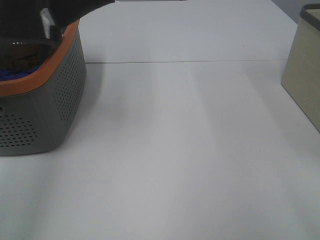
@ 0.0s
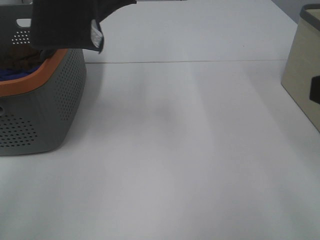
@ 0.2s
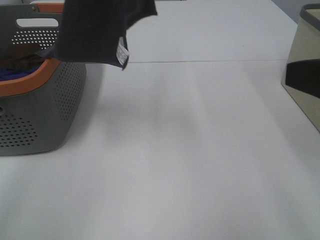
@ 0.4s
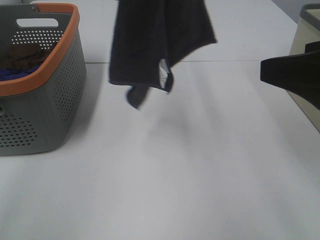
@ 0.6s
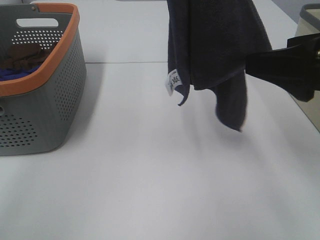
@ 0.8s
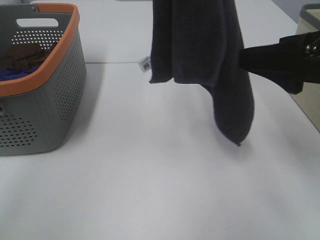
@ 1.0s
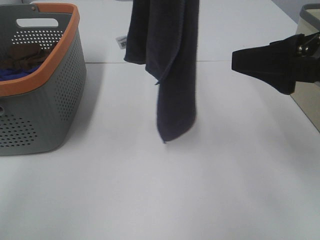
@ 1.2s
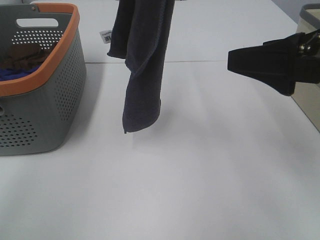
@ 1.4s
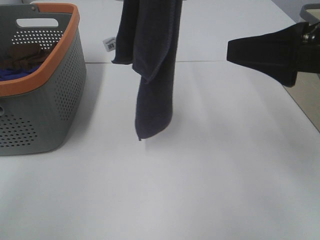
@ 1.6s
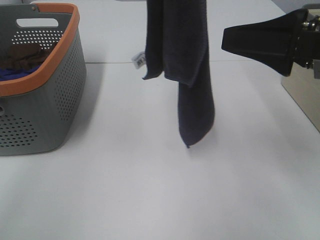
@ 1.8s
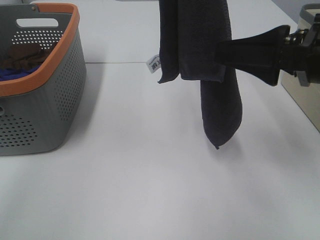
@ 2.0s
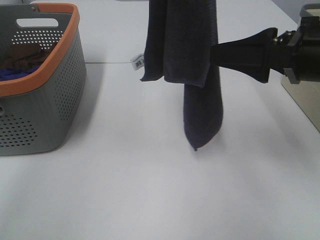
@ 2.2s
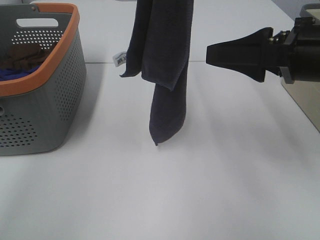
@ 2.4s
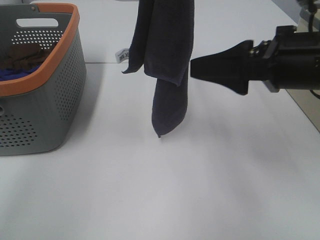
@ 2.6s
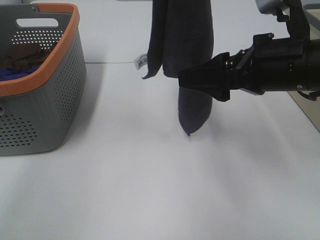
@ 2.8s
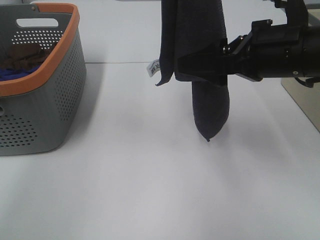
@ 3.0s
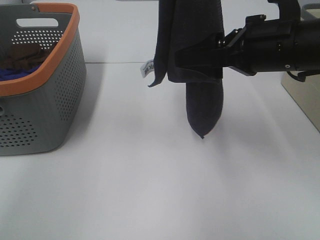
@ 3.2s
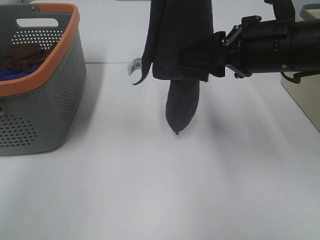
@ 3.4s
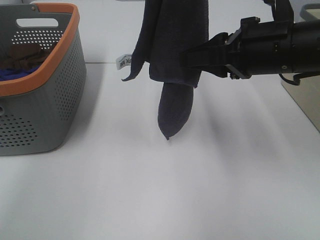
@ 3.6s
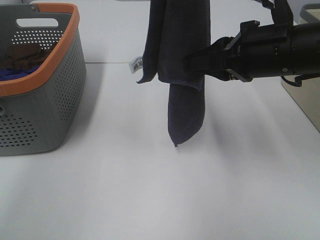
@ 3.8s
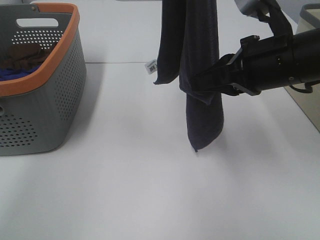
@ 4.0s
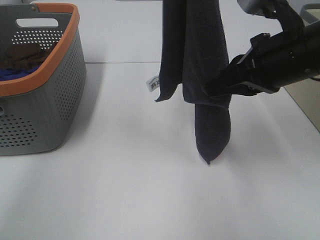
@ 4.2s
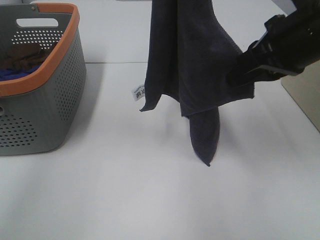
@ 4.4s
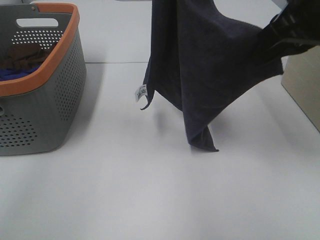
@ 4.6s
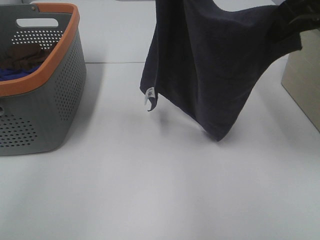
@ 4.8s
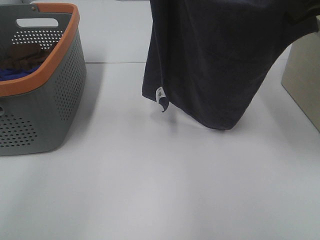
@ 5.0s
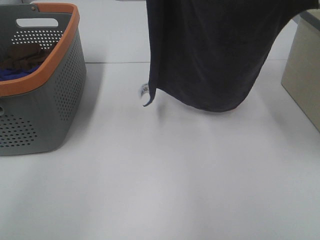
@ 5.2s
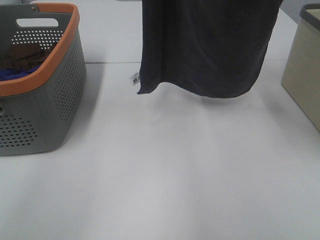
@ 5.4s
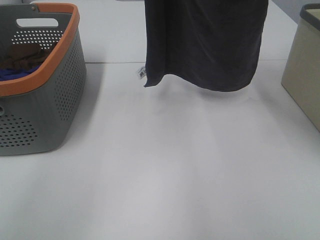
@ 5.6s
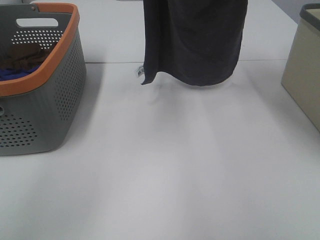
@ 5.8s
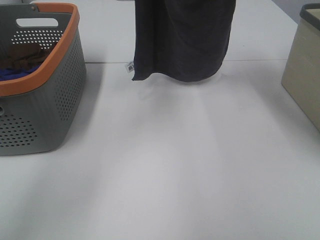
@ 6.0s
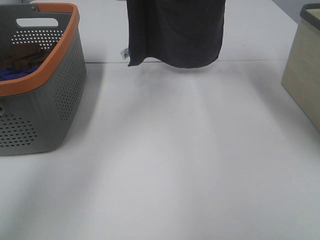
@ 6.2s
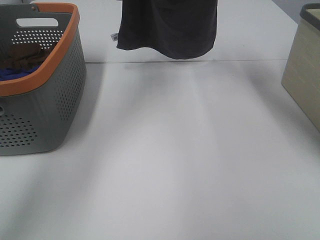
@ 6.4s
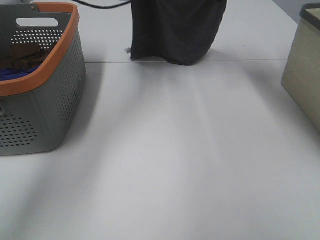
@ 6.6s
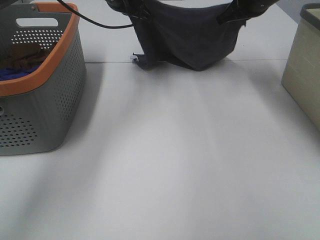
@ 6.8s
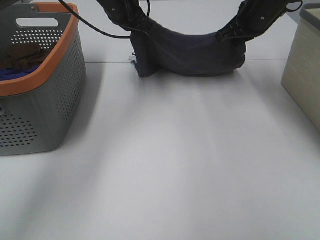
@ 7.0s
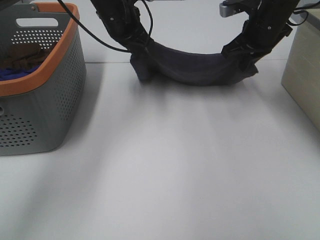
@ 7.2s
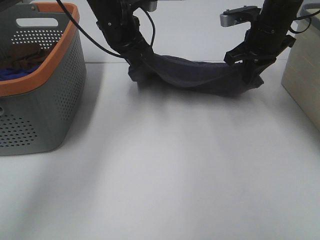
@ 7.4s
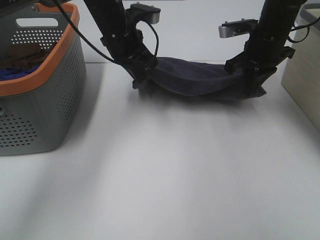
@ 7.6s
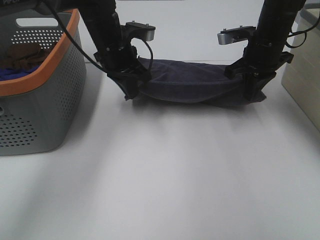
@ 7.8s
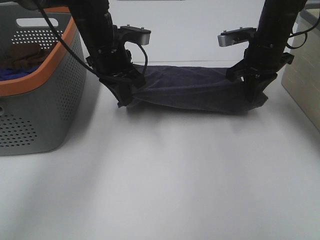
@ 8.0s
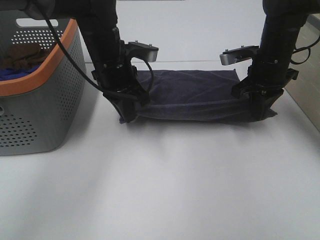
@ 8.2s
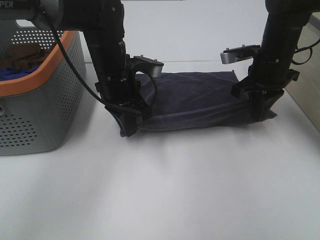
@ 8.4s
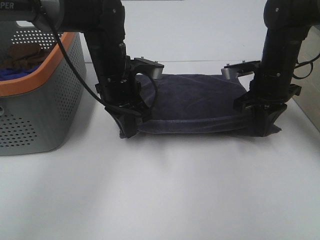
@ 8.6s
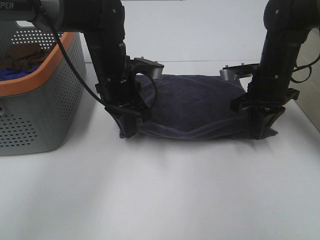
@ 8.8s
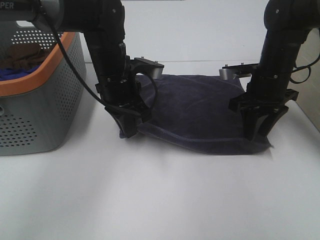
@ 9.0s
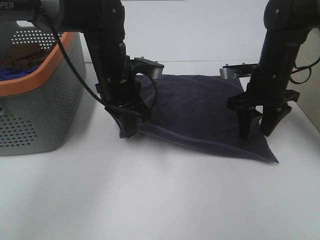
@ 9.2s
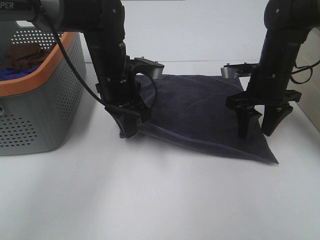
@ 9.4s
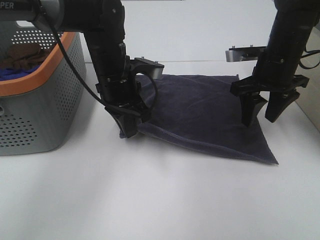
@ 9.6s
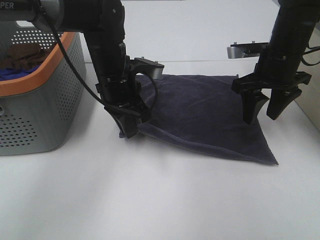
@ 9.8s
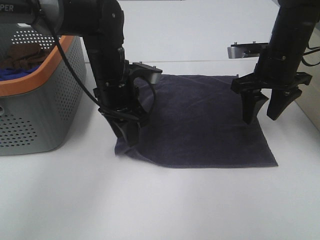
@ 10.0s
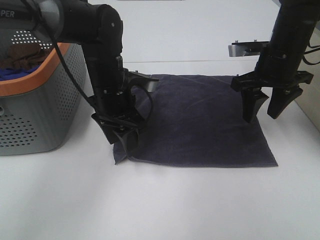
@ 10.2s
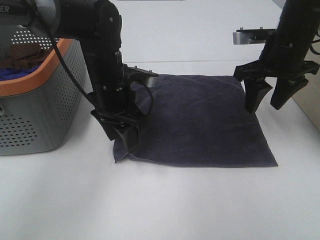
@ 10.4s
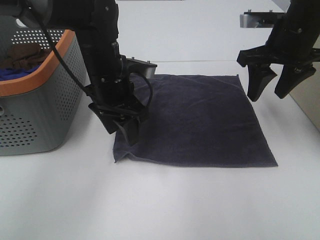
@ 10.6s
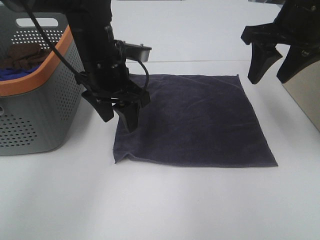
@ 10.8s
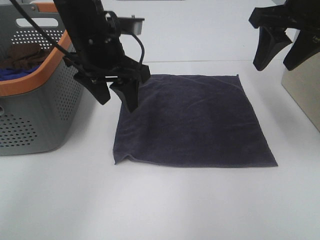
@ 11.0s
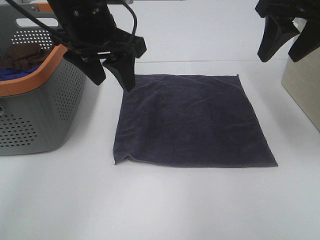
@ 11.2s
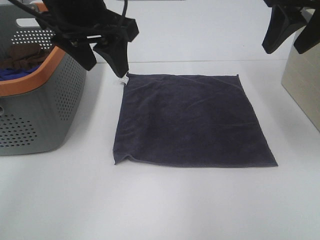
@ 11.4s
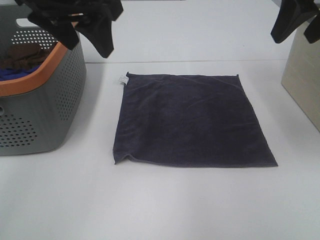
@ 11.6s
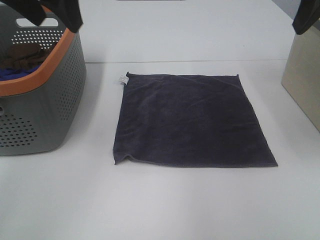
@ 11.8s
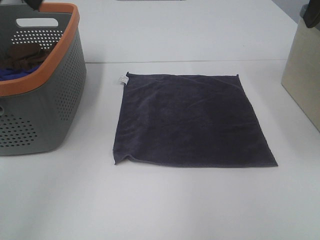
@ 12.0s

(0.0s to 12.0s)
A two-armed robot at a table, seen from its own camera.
Task of the whole recording: Remove the towel and place it.
Step, 0.0s - 2.6s: Right hand: grab a corner of the grey towel and straighten it.
Step, 2.8s - 4.8s: Right hand: spread the grey towel flat on the table.
Step, 2.8s - 6.0s: Left hand: spread the grey towel flat on the table.
0.0s - 1.6s: The right gripper goes roughly 15 cm forward, while the left gripper is displaced to the right by about 15 cm.
1.6s - 3.0s: The right gripper is displaced forward by some 5 cm.
3.0s - 4.4s: The right gripper closes its fingers.
4.4s - 6.0s: The right gripper shifts approximately 15 cm forward, while the left gripper shifts approximately 15 cm forward and downward.
6.0s - 7.6s: The grippers both shift downward by approximately 15 cm.
7.6s - 9.0s: The right gripper shifts by approximately 5 cm, and opens its fingers, while the left gripper shifts approximately 10 cm backward.
9.0s - 10.4s: The right gripper goes approximately 5 cm upward. The left gripper opens up.
10.4s - 12.0s: The right gripper is displaced upward and backward by approximately 20 cm. The left gripper is displaced upward and to the left by roughly 30 cm.

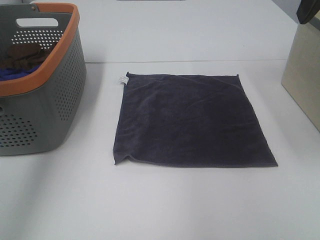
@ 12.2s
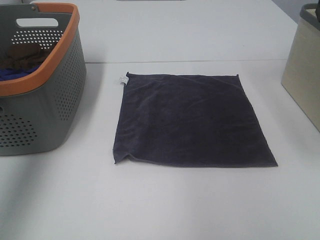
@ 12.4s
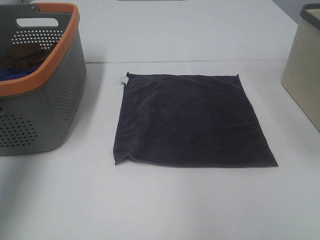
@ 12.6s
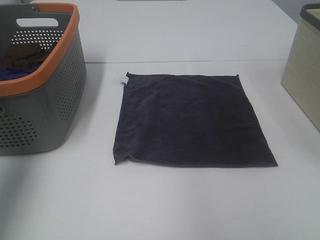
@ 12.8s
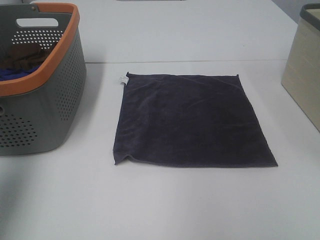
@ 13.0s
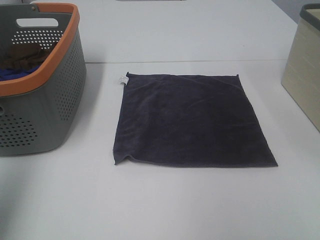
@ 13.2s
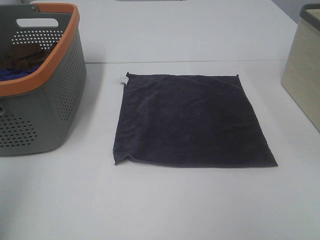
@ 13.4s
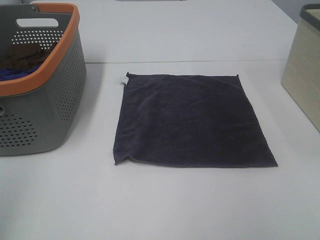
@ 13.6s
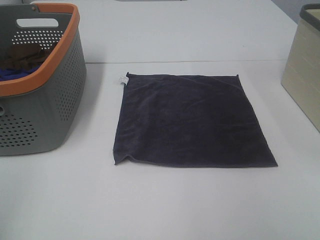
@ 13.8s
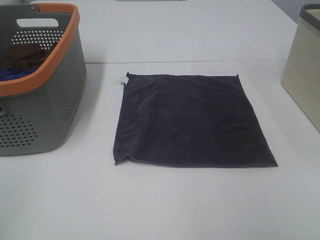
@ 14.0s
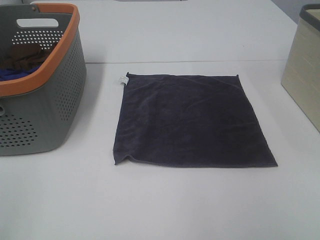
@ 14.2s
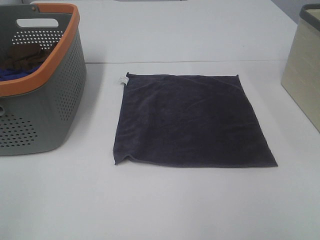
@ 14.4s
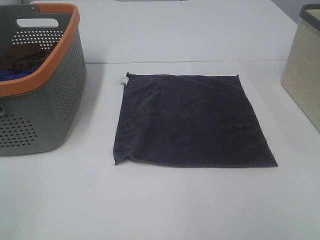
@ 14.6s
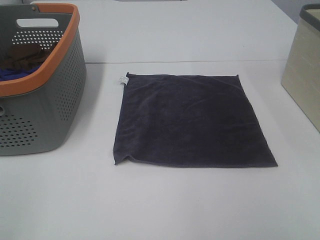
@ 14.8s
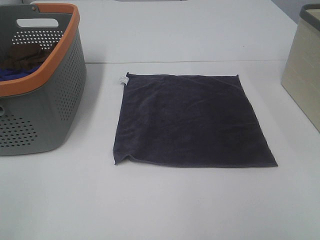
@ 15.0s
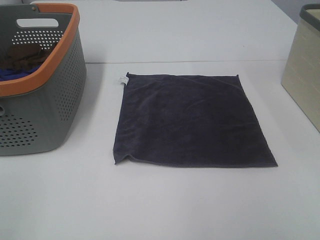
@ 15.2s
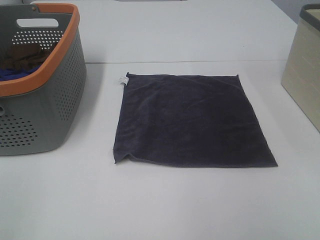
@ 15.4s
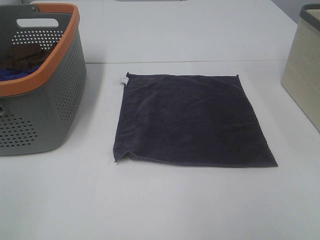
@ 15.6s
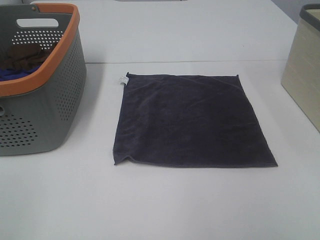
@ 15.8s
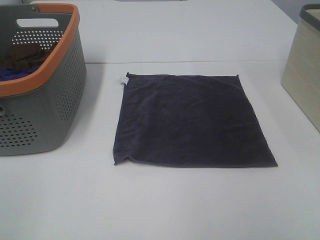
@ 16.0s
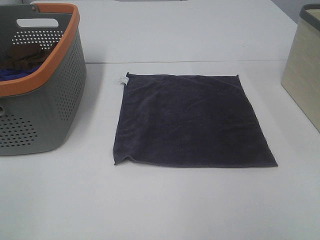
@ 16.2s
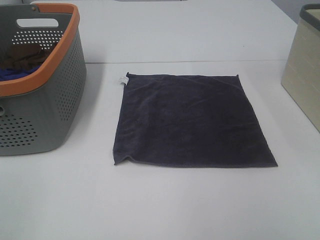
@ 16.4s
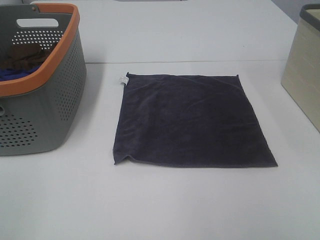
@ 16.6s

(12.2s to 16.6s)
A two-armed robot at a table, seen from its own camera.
Task of the whole recording: Remove the towel and place it.
12.2s - 13.6s: The left gripper travels backward and downward by approximately 25 cm.
15.2s - 16.6s: Both grippers stay about where they are.

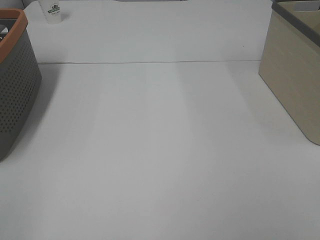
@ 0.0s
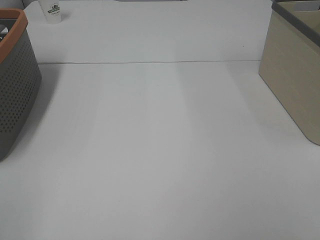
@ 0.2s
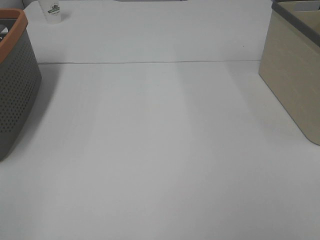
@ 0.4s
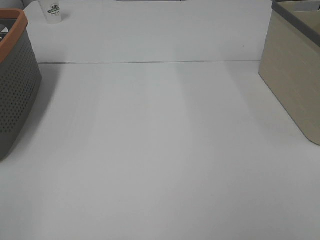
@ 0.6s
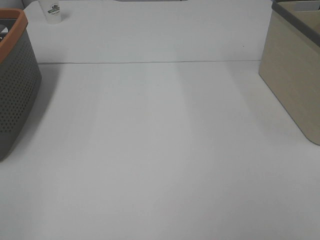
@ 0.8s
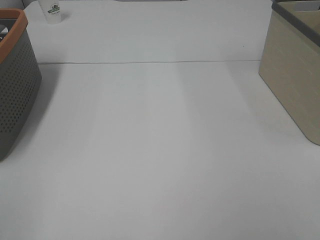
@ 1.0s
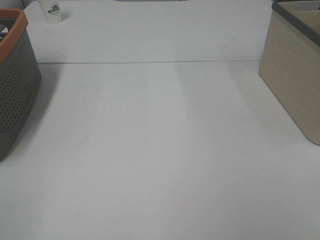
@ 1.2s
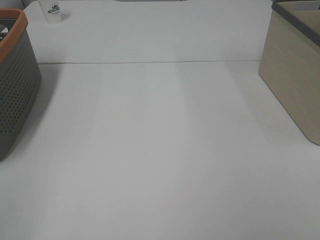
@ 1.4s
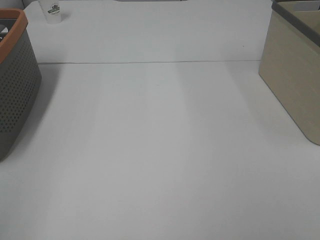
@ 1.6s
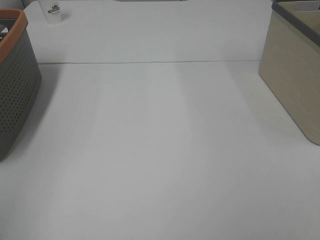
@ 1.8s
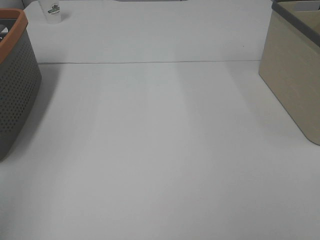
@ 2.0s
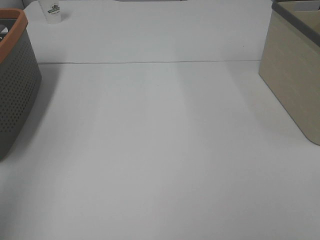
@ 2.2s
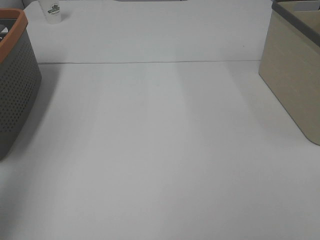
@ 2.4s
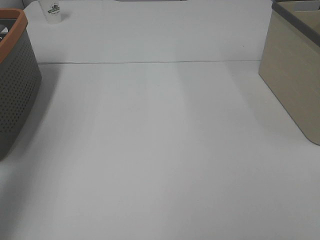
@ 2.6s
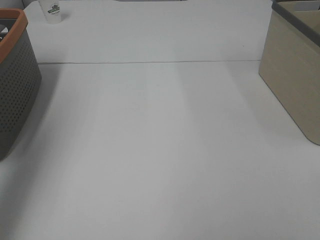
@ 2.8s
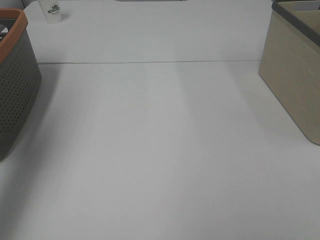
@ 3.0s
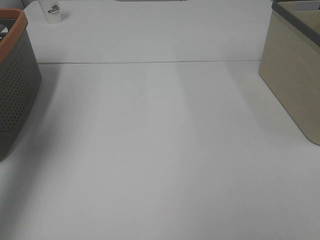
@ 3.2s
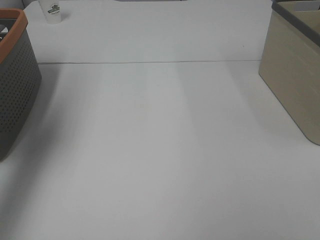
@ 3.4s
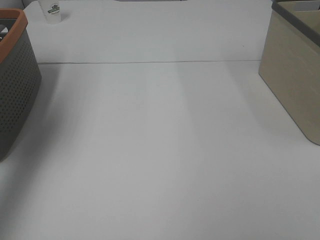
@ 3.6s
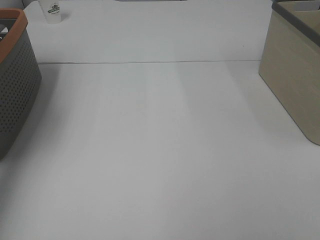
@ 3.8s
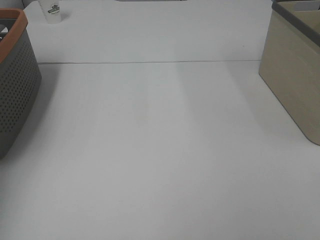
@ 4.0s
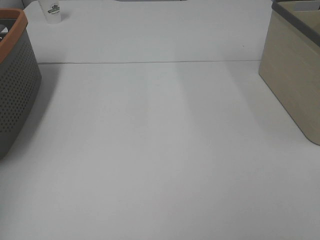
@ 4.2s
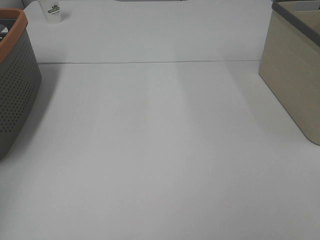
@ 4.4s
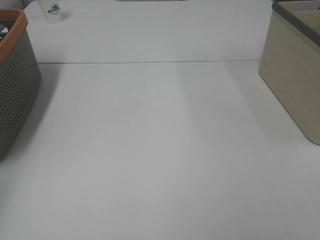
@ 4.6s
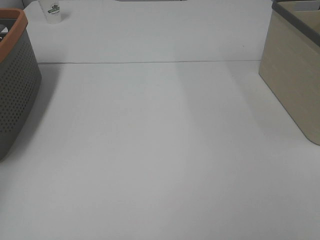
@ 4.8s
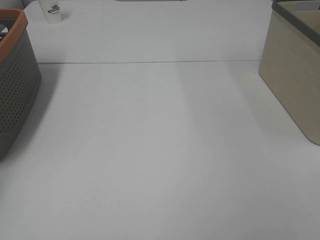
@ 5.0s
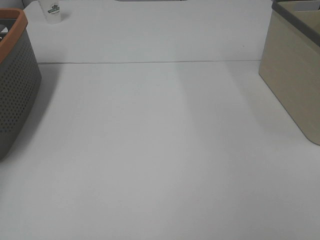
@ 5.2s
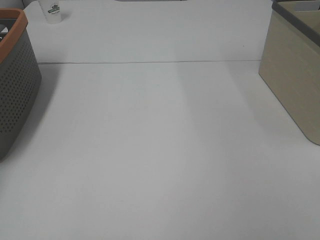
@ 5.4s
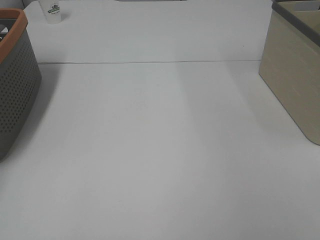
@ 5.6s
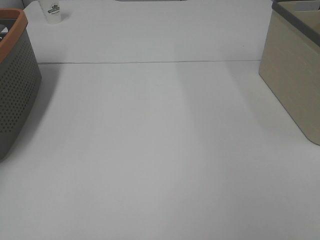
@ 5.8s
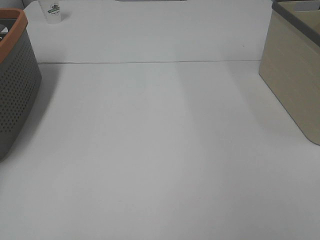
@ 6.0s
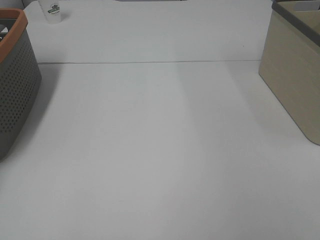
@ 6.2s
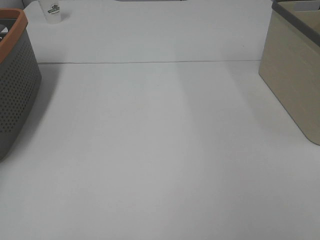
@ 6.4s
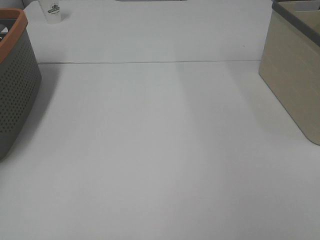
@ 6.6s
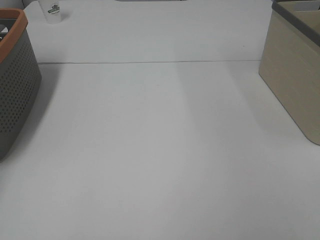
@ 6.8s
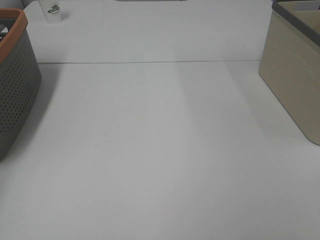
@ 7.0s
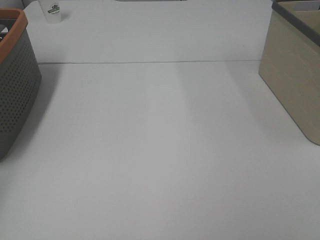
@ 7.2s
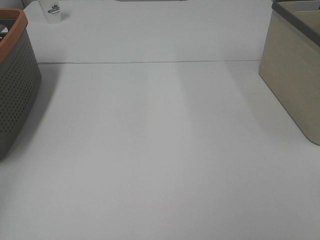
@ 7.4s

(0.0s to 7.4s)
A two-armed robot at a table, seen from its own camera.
Task of the whole recording: Remove the towel and place it.
1.4s - 3.0s: The left gripper goes some 25 cm forward.
3.0s - 4.4s: The left gripper moves forward and to the left, roughly 15 cm.
